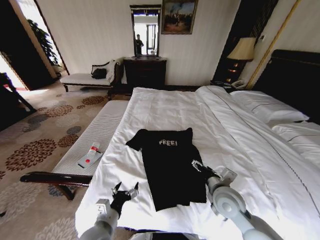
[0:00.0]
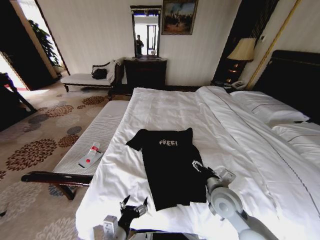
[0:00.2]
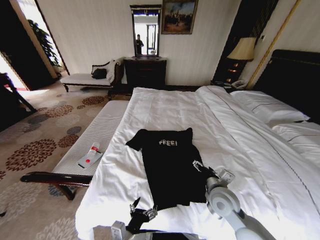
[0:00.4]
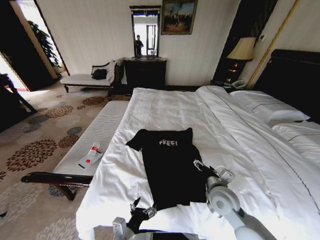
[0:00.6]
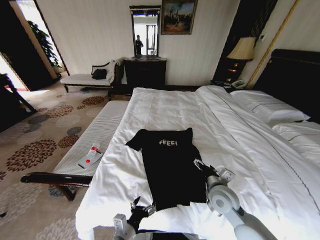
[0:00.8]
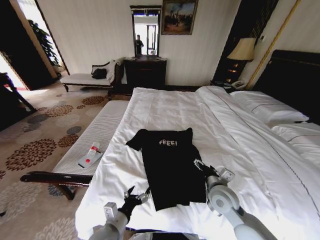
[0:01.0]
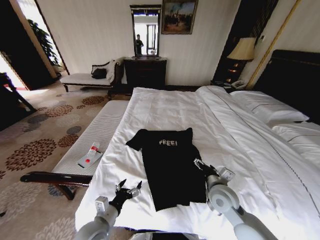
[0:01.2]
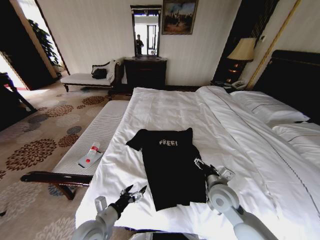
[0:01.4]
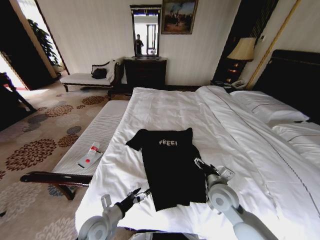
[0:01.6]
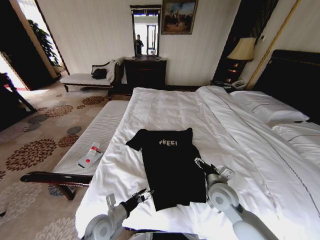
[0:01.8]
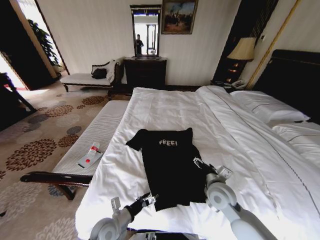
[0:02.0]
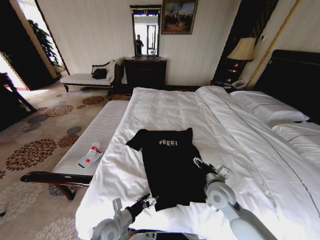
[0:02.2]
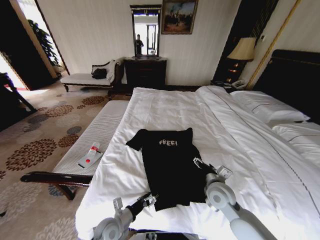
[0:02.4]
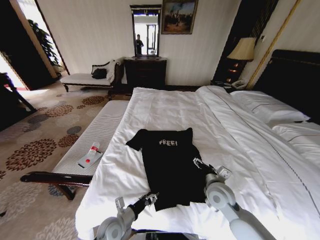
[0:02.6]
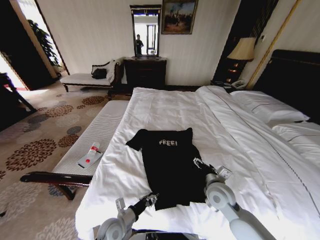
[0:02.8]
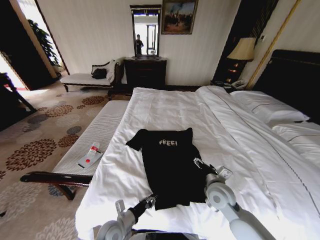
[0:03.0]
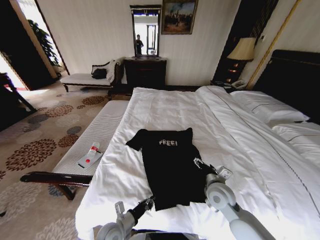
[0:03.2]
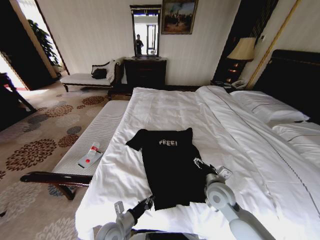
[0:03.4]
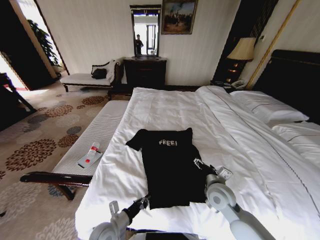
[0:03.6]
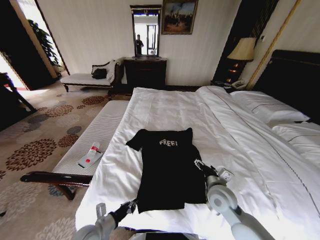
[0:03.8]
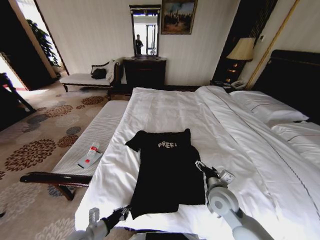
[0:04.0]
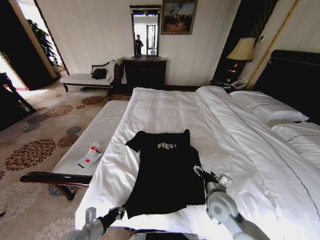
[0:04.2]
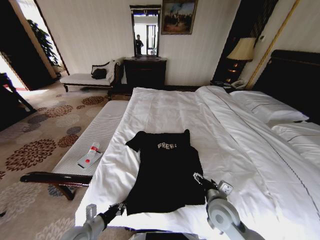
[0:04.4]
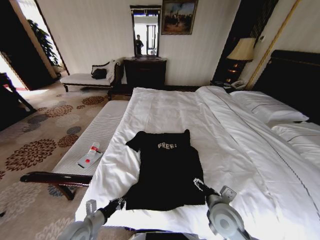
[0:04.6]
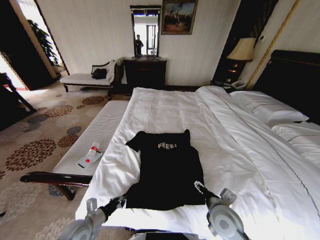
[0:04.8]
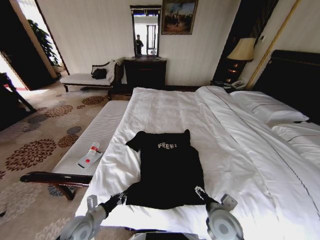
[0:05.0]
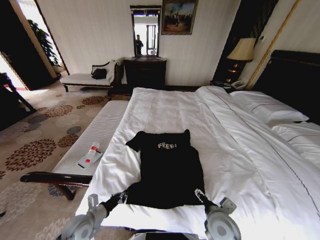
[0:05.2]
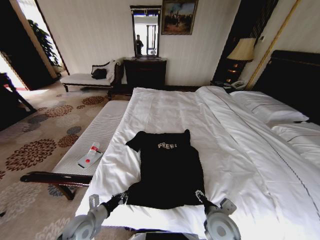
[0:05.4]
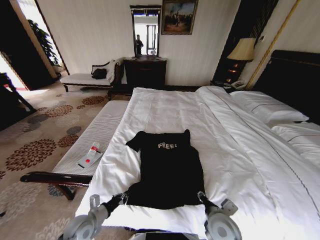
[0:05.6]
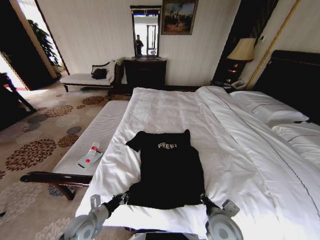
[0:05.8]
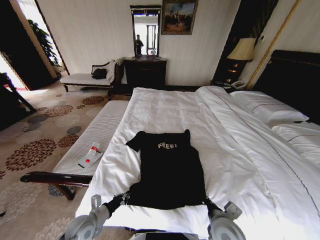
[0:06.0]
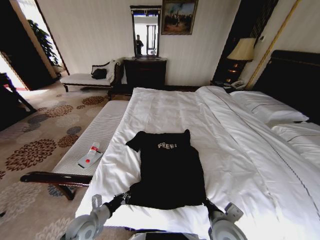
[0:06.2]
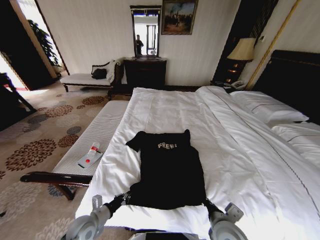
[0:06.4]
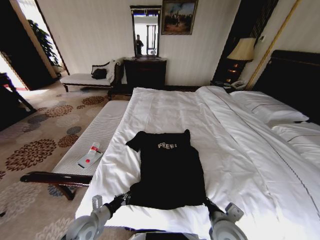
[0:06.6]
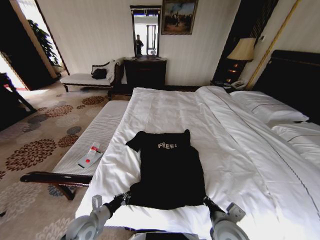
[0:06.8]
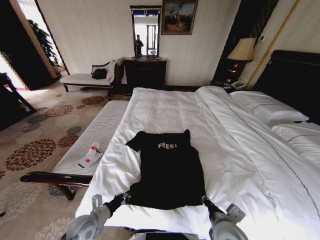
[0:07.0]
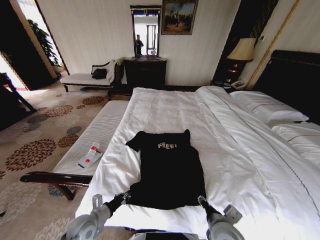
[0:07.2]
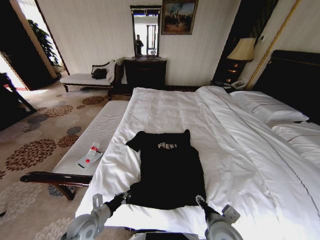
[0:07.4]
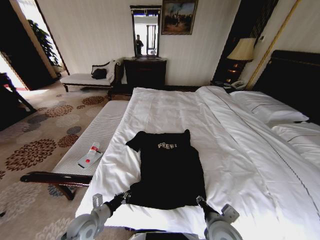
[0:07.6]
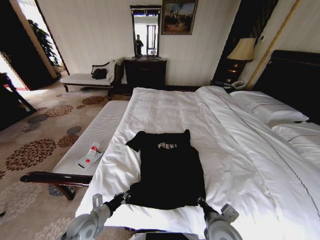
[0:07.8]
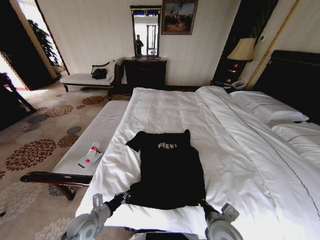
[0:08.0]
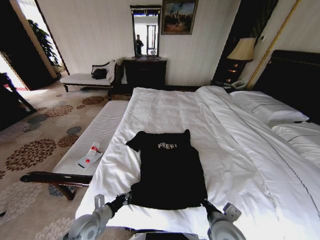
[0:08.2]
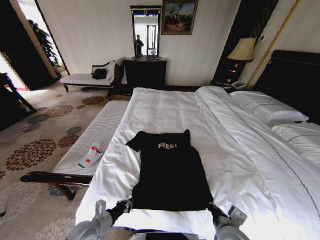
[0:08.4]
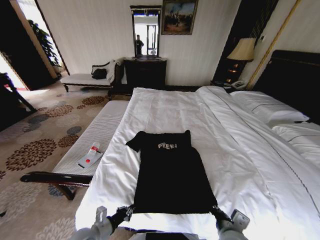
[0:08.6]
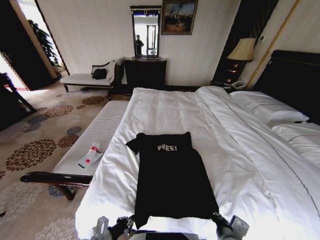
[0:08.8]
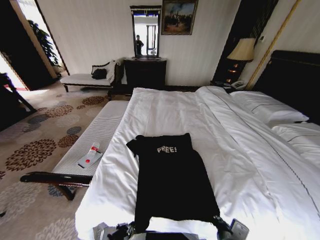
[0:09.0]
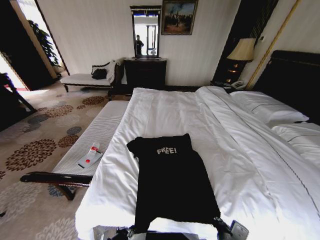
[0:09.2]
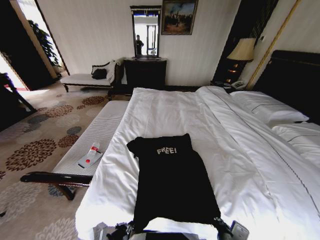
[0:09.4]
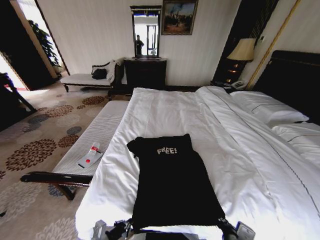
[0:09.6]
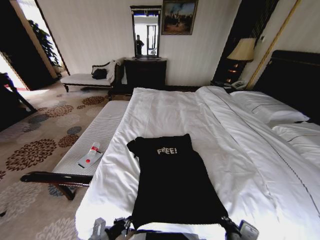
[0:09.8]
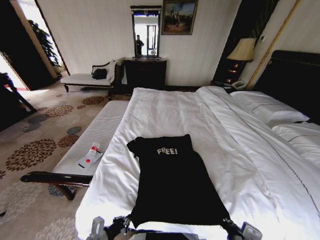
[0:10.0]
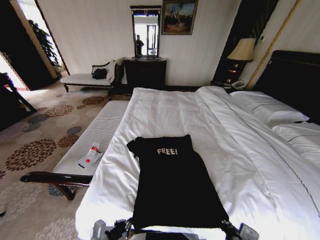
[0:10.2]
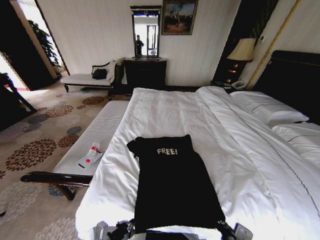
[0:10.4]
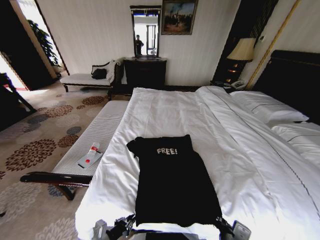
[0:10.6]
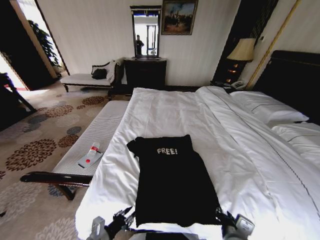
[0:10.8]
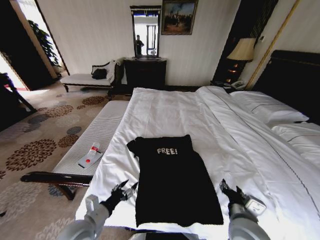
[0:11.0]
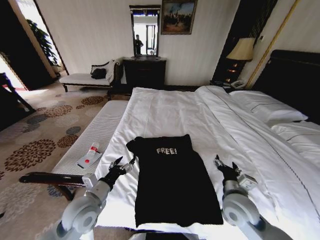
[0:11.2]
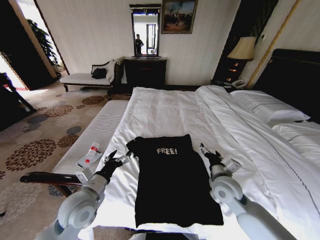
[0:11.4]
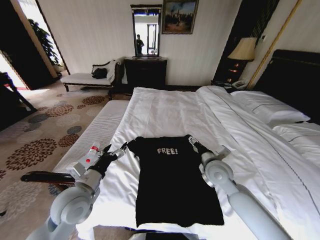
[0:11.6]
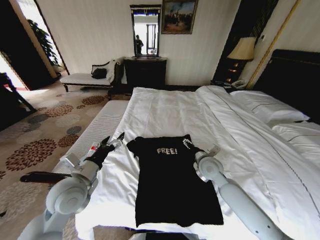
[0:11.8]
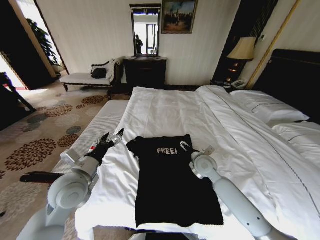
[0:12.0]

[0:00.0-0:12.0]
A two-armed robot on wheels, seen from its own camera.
Task of the whole recording: Fold the clothes on the bed.
0:00.0 to 0:01.6: The left gripper heads downward, covering approximately 5 cm.
0:01.6 to 0:03.0: The left gripper shifts by roughly 5 cm, and closes its fingers.
0:03.0 to 0:04.4: The right gripper moves approximately 5 cm. Meanwhile the left gripper travels to the left by approximately 10 cm.
0:04.4 to 0:06.0: The right gripper travels backward by roughly 5 cm, and closes its fingers.
0:06.0 to 0:07.6: The right gripper opens.
0:07.6 to 0:09.0: The right gripper moves roughly 5 cm, and closes its fingers. The left gripper travels backward by approximately 10 cm.
0:09.0 to 0:10.4: There are only small adjustments of the grippers.
0:10.4 to 0:12.0: The left gripper heads upward and forward, covering about 25 cm, and opens up. The right gripper moves forward, roughly 30 cm, and opens.

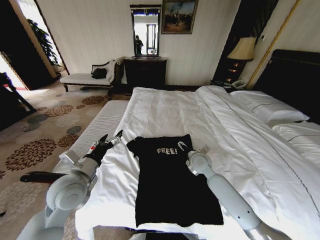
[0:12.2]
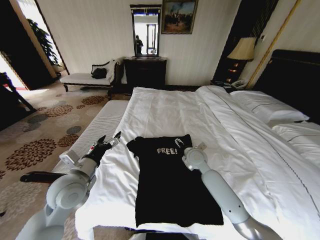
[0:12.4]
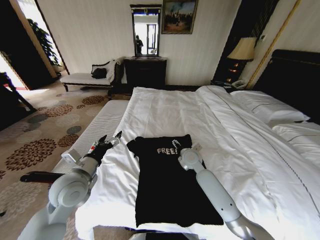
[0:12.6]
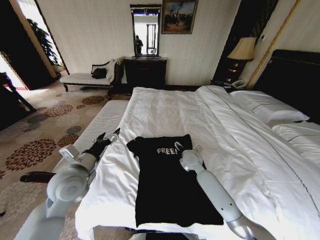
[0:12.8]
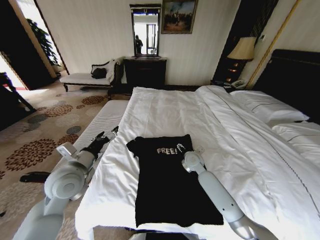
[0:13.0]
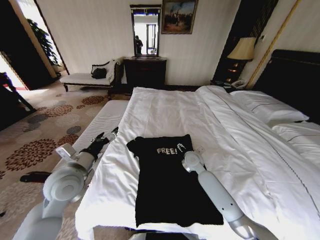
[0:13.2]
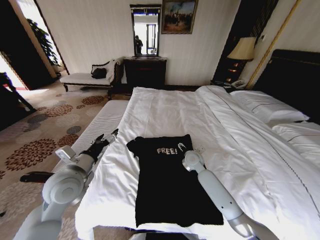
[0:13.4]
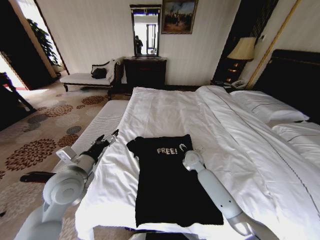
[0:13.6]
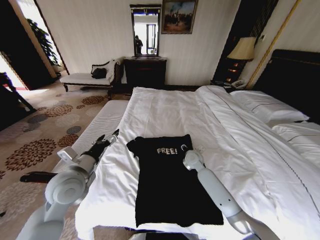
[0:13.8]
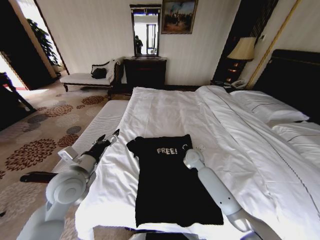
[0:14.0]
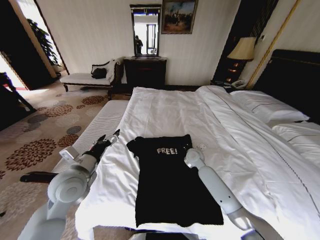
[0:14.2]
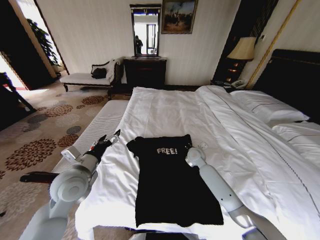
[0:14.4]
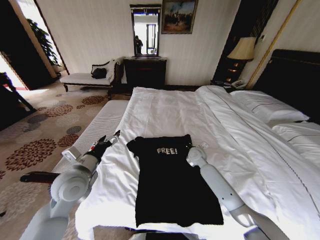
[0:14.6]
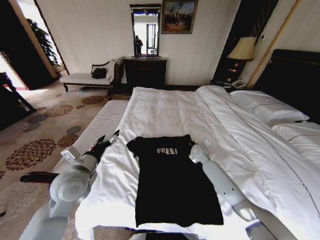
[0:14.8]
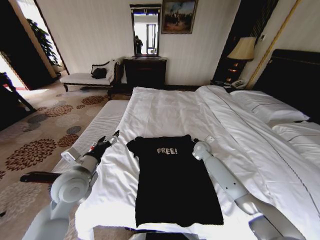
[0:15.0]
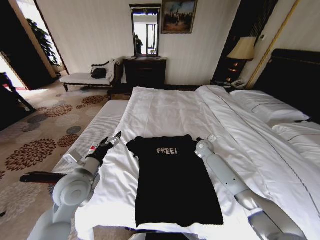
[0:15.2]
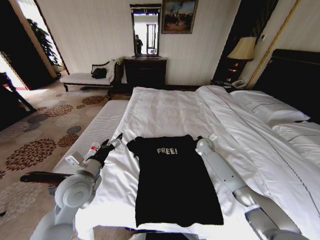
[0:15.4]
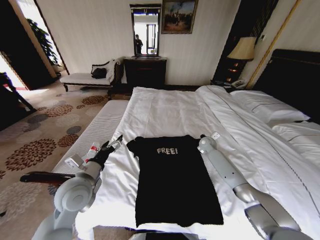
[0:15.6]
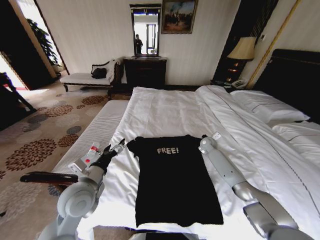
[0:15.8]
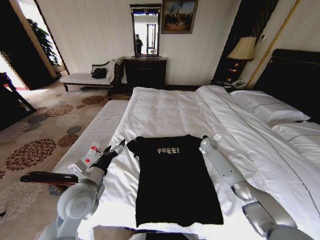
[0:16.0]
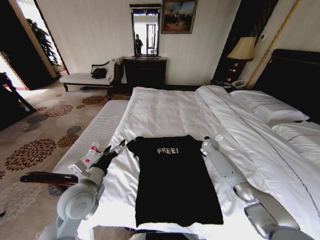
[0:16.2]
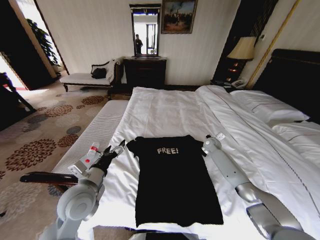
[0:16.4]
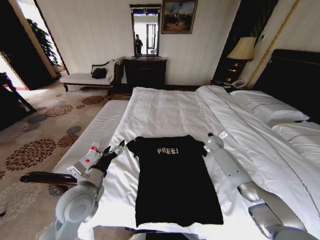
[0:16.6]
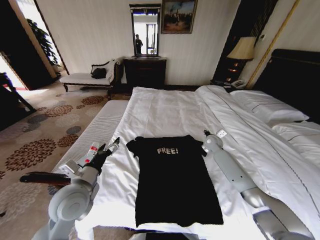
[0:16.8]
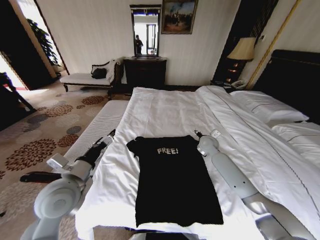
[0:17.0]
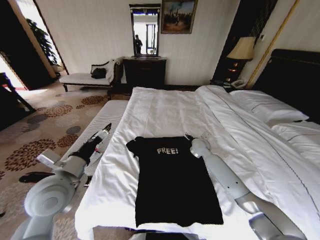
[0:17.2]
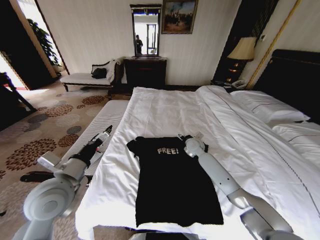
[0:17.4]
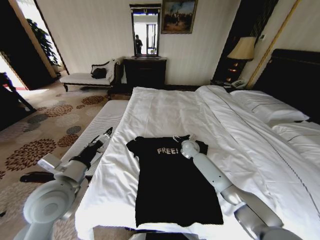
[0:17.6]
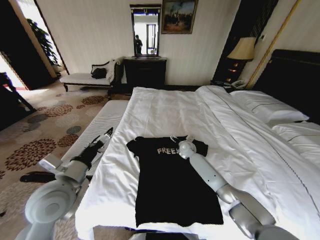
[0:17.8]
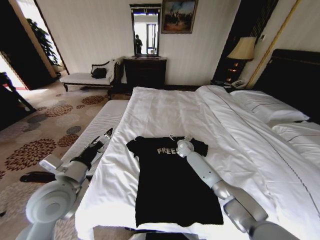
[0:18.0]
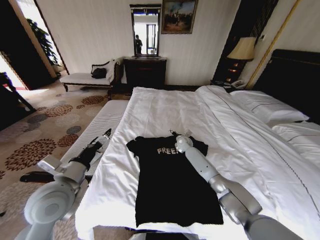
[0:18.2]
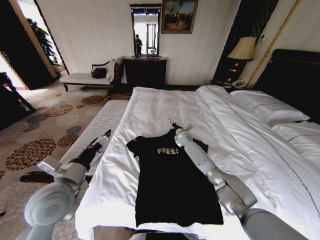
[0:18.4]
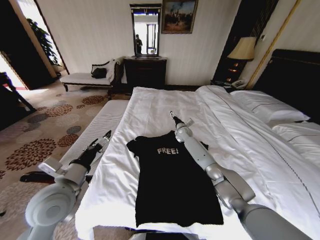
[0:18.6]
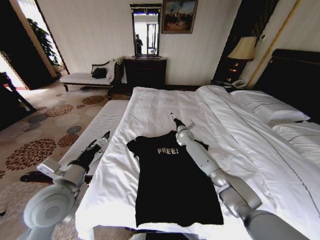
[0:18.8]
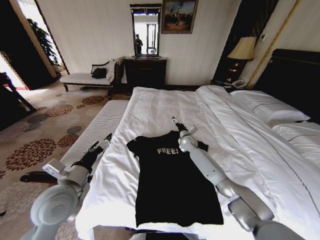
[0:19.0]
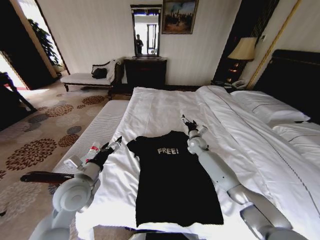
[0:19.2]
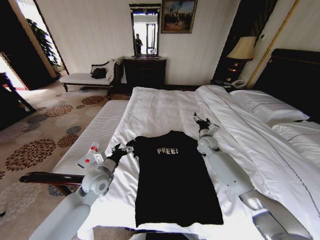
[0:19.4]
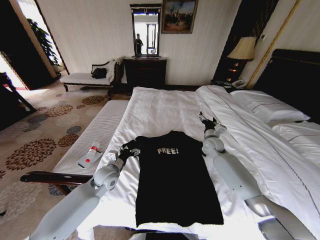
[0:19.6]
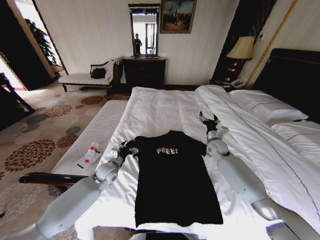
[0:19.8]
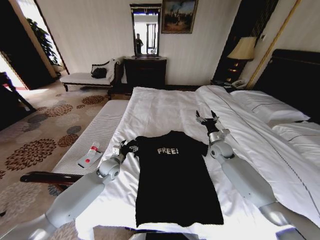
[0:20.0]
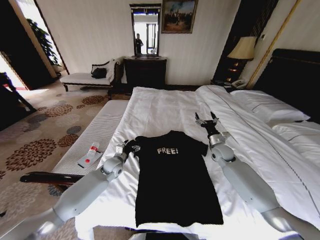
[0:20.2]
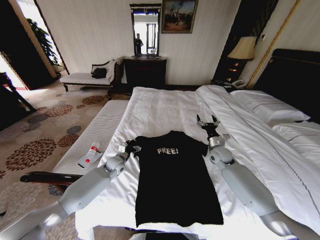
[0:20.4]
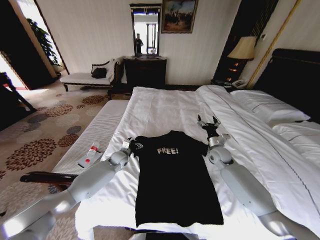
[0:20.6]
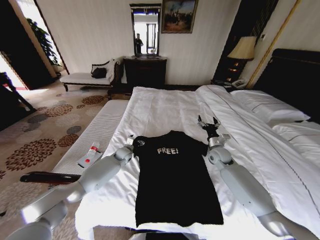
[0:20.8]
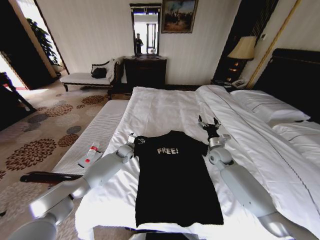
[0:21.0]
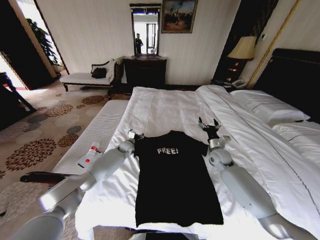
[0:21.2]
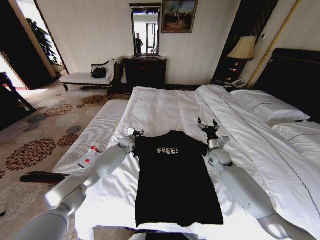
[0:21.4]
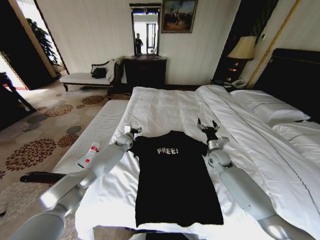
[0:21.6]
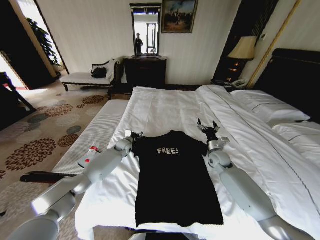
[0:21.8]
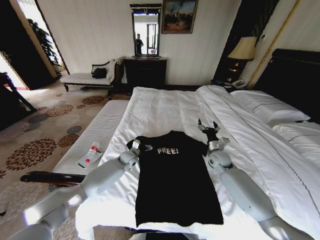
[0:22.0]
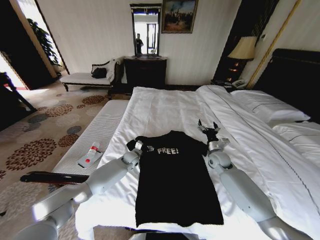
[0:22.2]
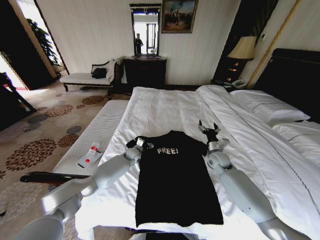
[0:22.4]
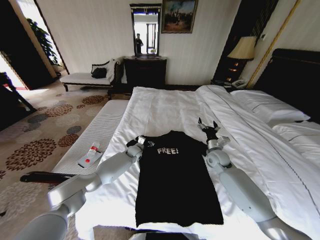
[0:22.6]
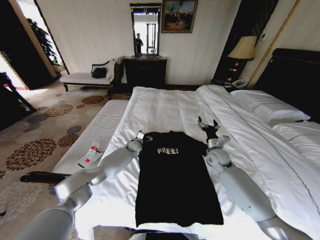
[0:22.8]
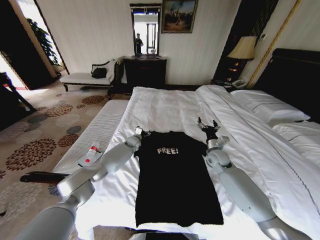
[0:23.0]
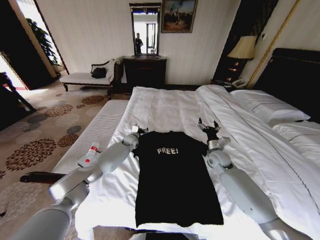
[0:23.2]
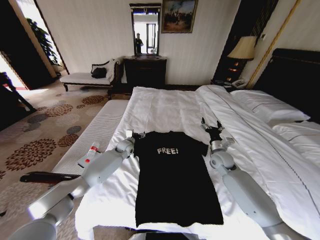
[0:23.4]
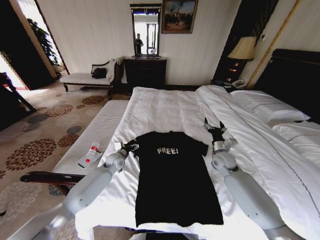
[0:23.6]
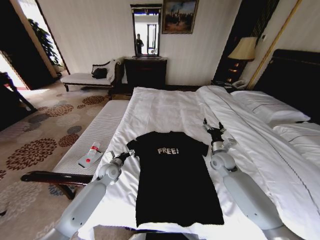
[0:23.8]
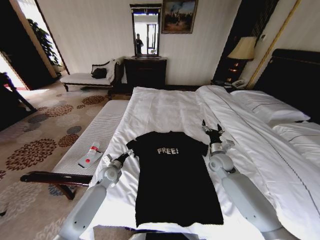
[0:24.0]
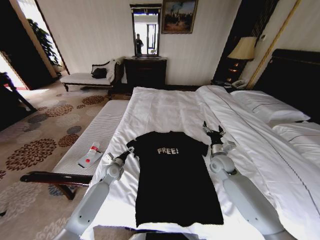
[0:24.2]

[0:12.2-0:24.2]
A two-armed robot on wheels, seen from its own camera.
Task of the whole recording: Fold the clothes on the bed.
0:12.2 to 0:13.8: The right gripper is displaced forward by some 5 cm.
0:13.8 to 0:15.2: The right gripper is displaced to the right and forward by about 10 cm, and closes its fingers.
0:15.2 to 0:16.6: The right gripper goes some 5 cm to the right, and opens up.
0:16.6 to 0:18.2: The left gripper shifts by some 5 cm. The right gripper goes roughly 15 cm to the left, and opens its fingers.
0:18.2 to 0:19.8: The left gripper heads downward and forward, covering roughly 25 cm. Meanwhile the right gripper heads to the right, backward and upward, covering roughly 15 cm.
0:19.8 to 0:21.2: The left gripper moves forward, about 20 cm. The right gripper shifts by about 5 cm.
0:21.2 to 0:22.6: The left gripper reaches some 5 cm backward, then returns.
0:22.6 to 0:24.2: The left gripper goes some 20 cm backward and to the left.
